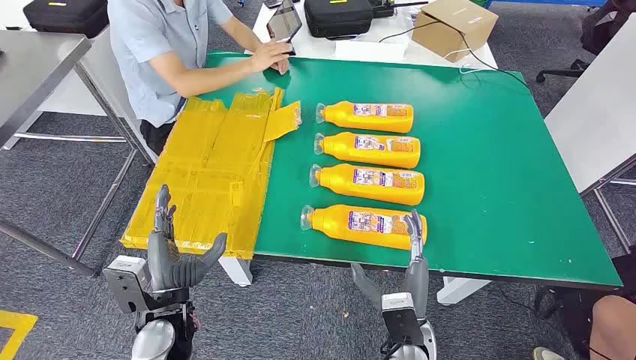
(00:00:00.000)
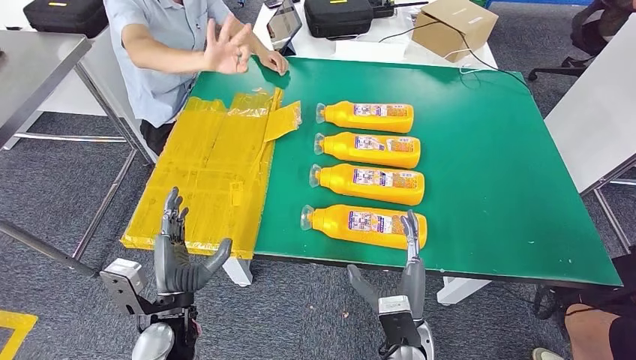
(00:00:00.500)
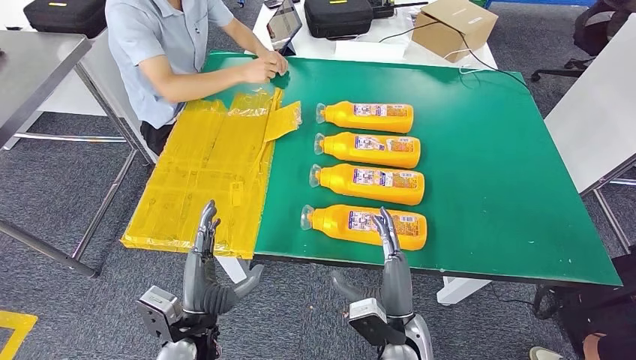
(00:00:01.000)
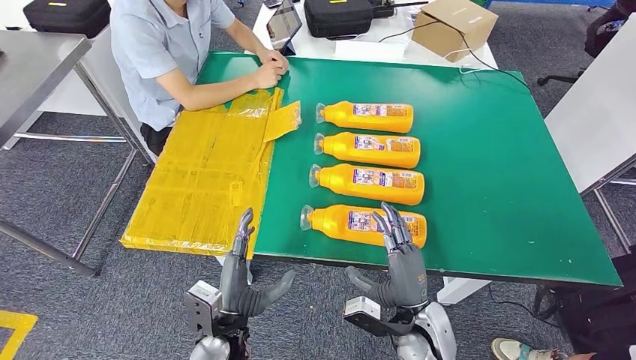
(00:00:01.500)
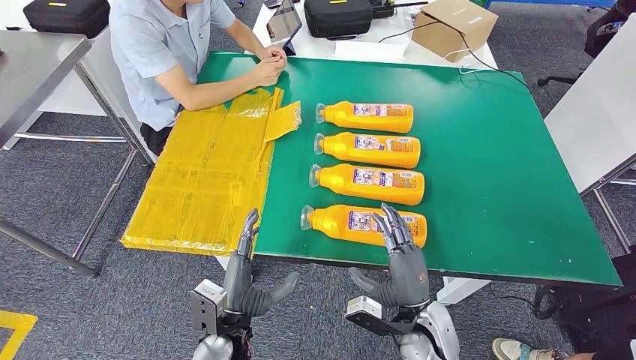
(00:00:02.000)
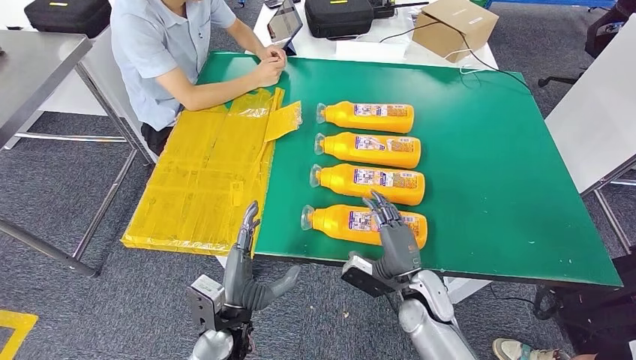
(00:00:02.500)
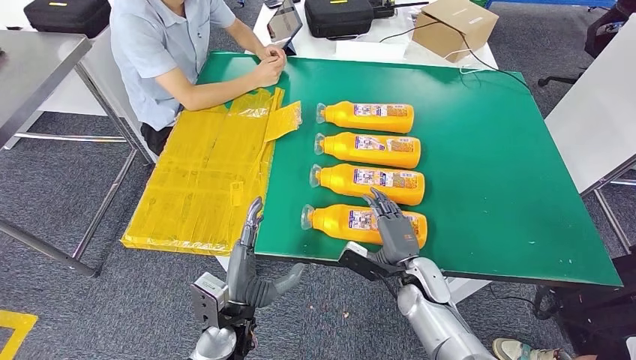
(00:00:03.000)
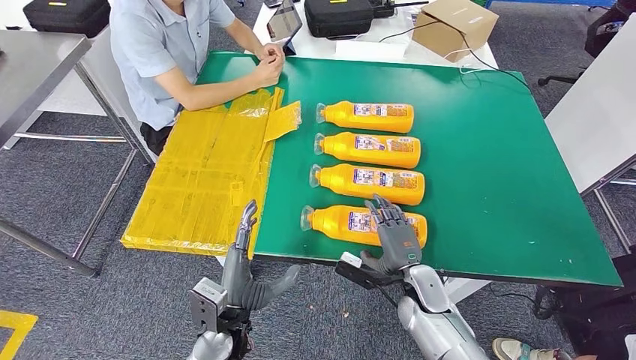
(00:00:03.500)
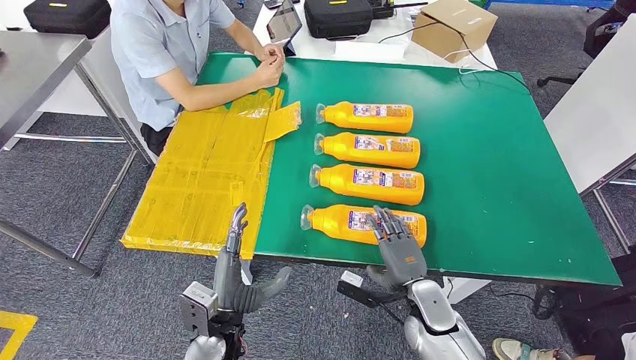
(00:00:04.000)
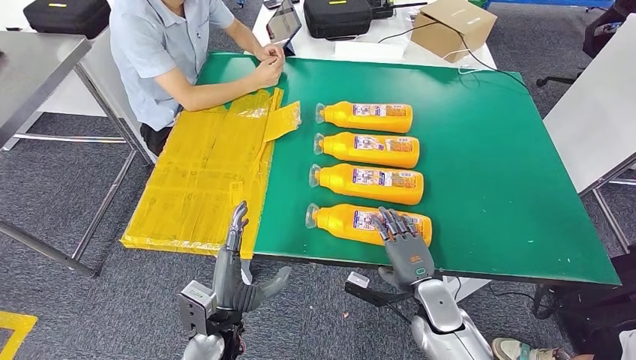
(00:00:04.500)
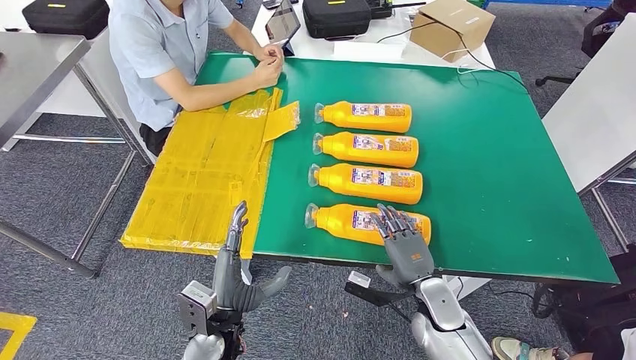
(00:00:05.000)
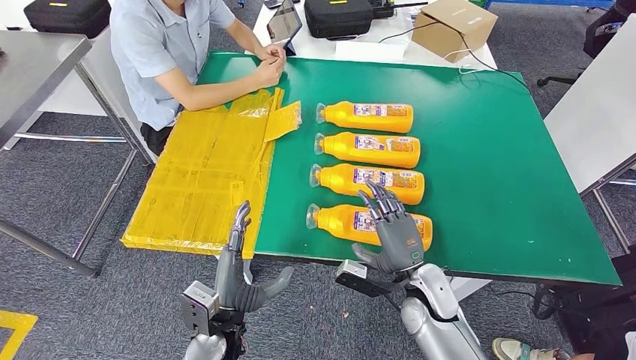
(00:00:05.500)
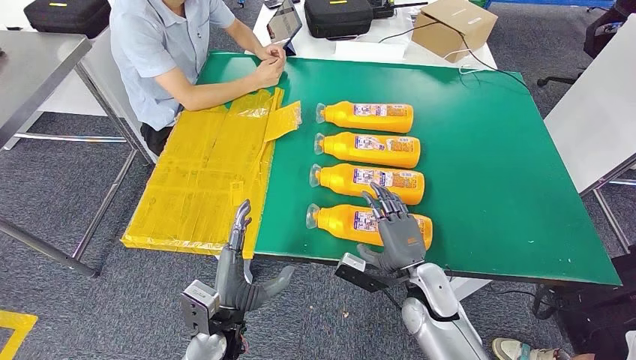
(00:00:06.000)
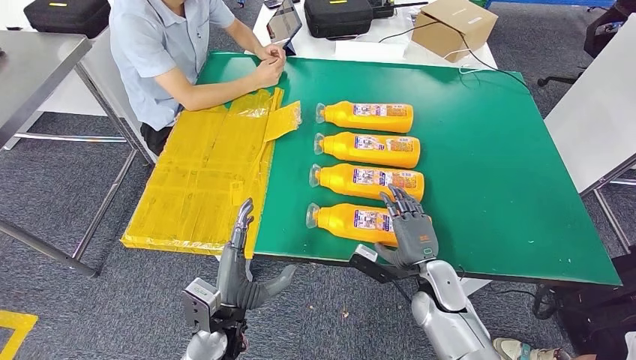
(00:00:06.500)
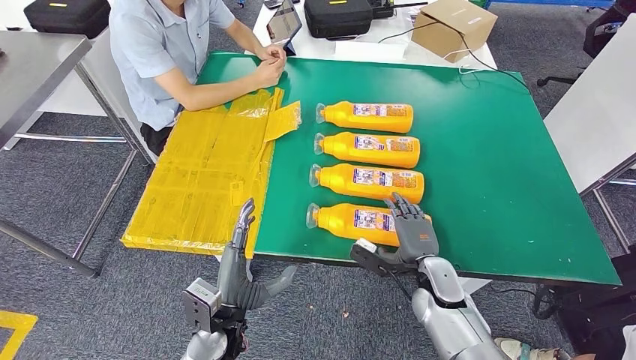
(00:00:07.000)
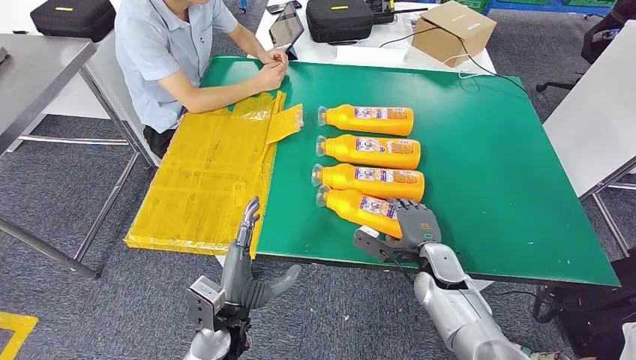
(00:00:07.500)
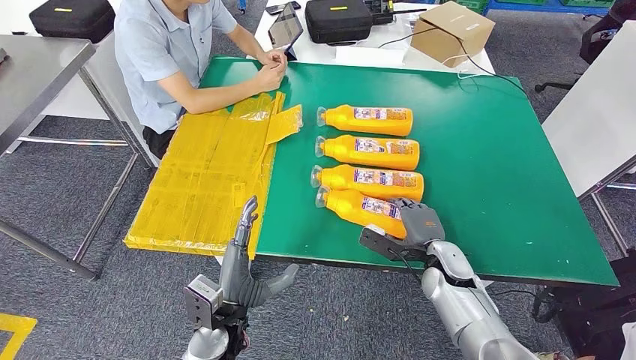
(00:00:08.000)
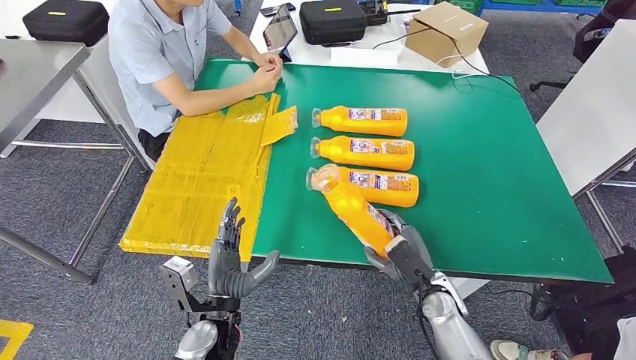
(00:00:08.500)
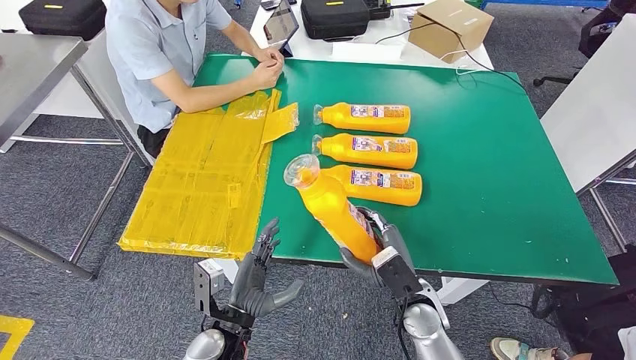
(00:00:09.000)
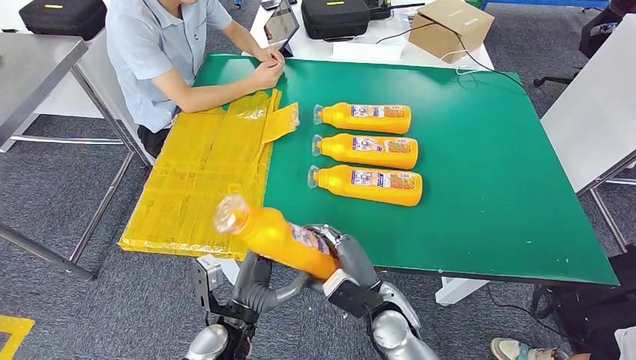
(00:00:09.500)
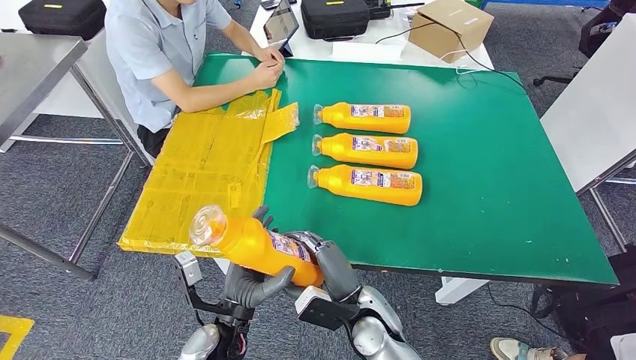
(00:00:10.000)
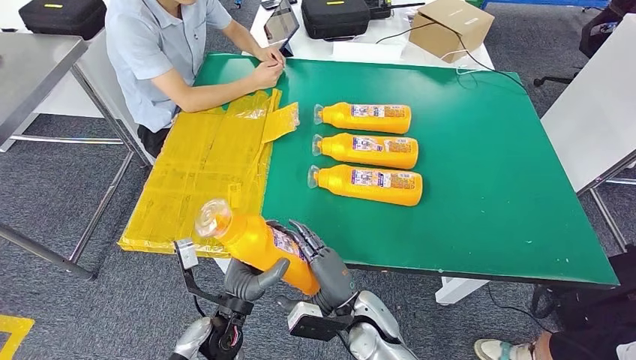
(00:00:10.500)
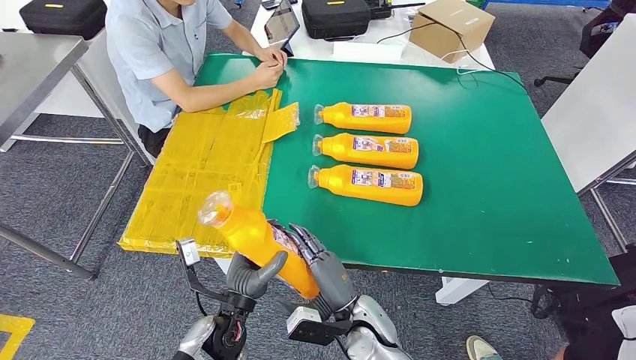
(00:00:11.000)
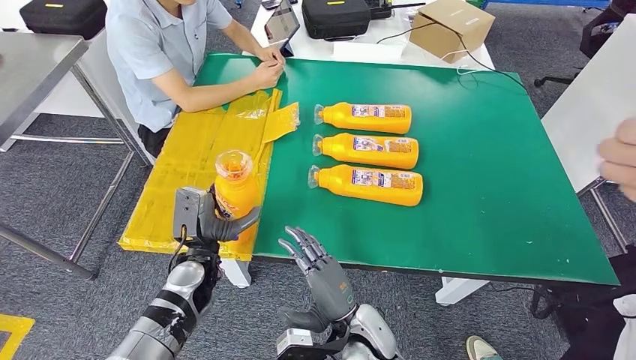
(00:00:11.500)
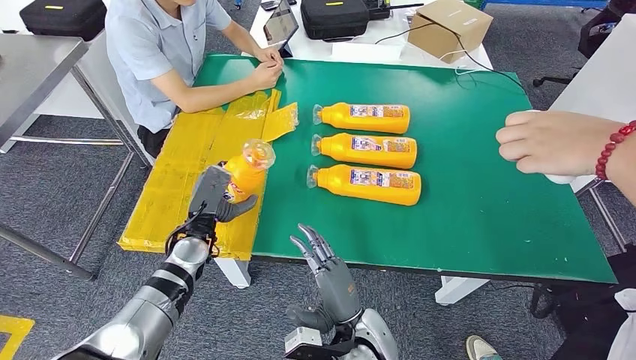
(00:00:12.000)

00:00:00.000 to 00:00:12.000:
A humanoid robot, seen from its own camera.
Step, 00:00:00.000 to 00:00:09.000: Take the fast-moving consumer goods bottle from the table.
00:00:04.000 to 00:00:06.000: The right hand ends up some 5 cm from where it was.
00:00:10.000 to 00:00:12.000: The left hand travels forward and to the left by roughly 15 cm.

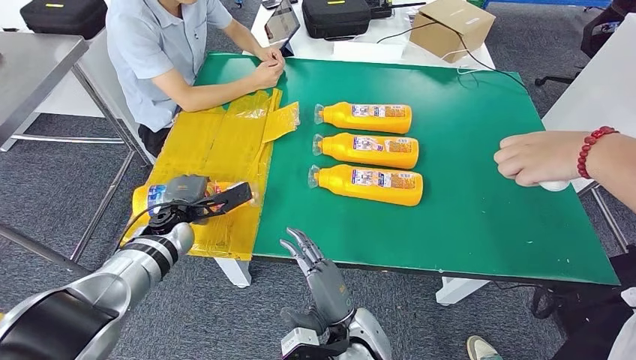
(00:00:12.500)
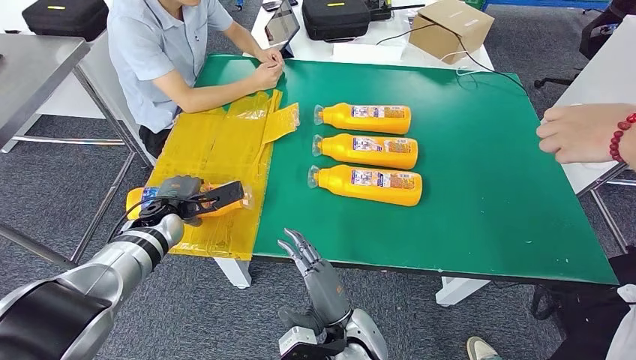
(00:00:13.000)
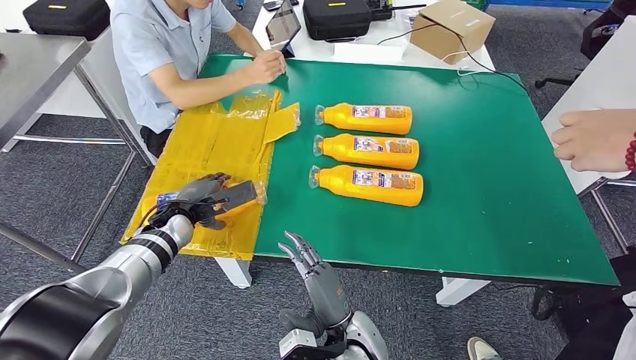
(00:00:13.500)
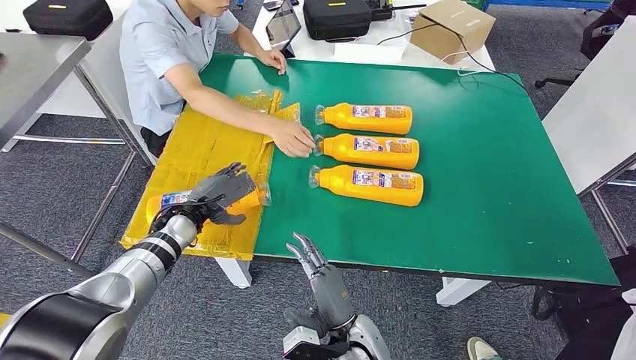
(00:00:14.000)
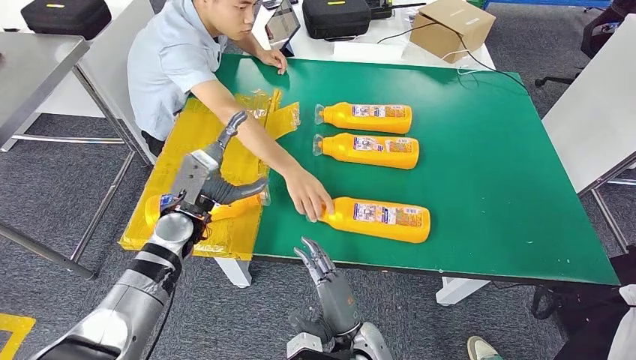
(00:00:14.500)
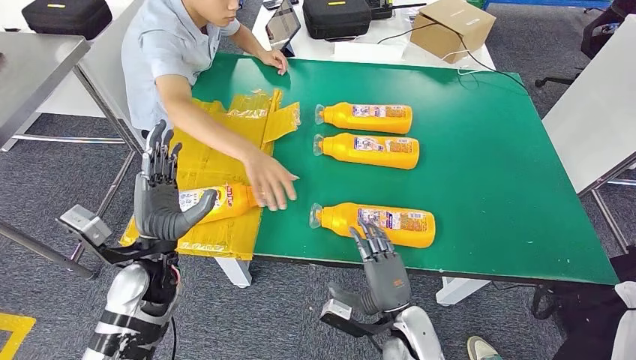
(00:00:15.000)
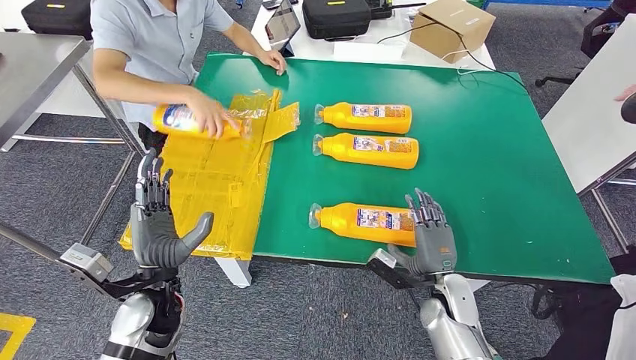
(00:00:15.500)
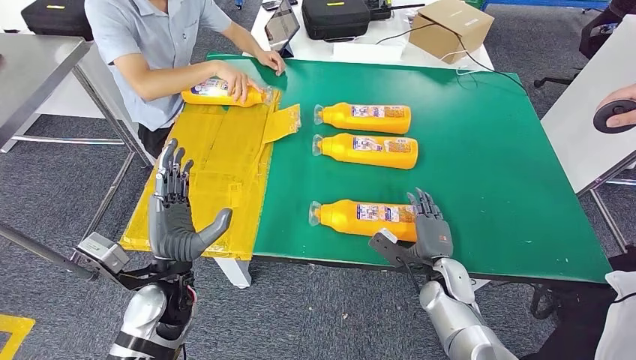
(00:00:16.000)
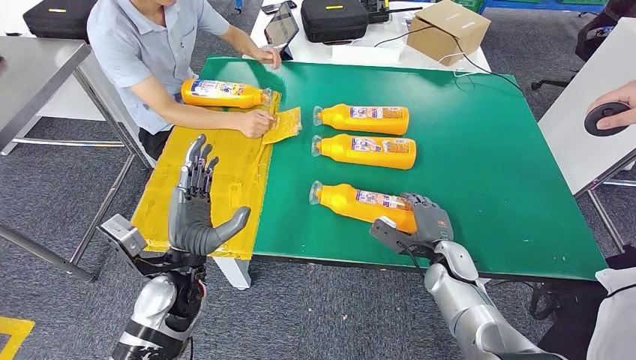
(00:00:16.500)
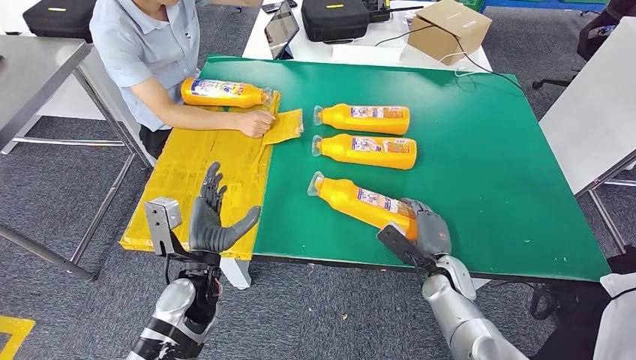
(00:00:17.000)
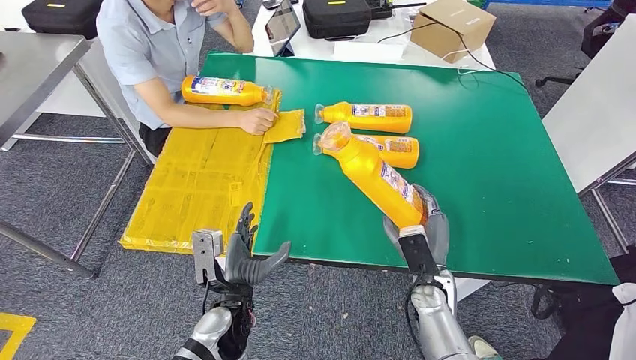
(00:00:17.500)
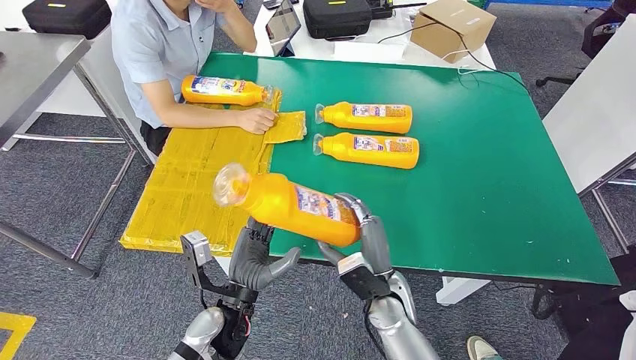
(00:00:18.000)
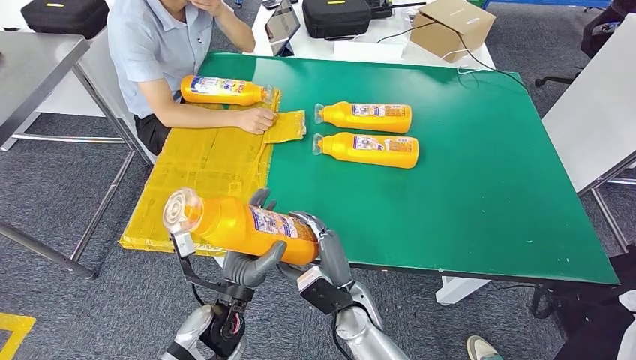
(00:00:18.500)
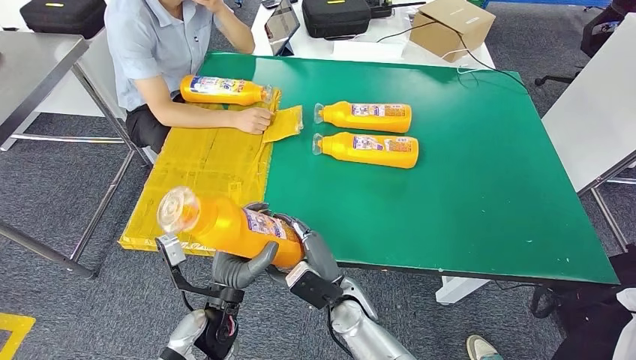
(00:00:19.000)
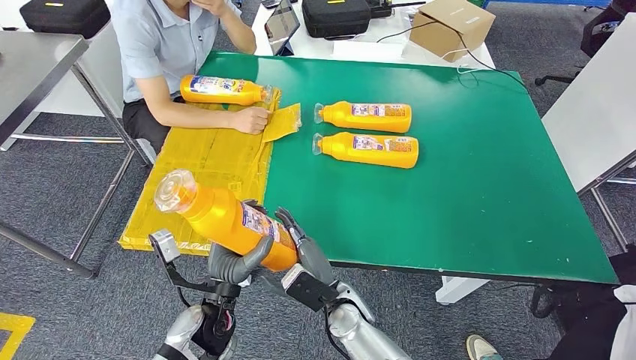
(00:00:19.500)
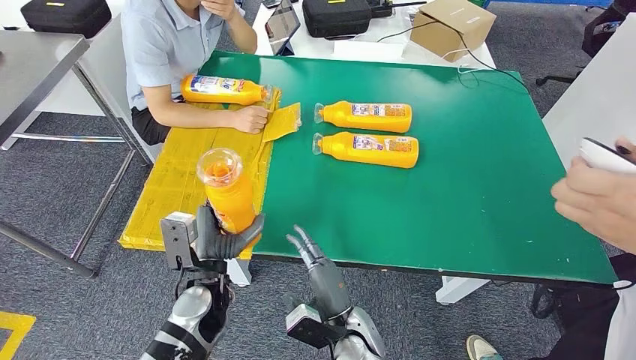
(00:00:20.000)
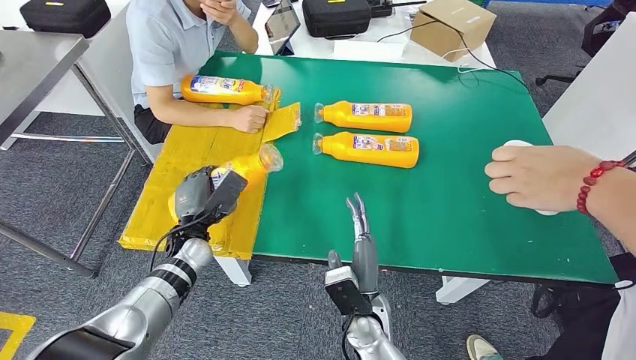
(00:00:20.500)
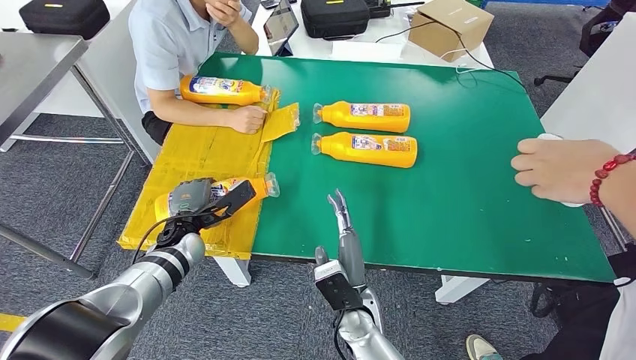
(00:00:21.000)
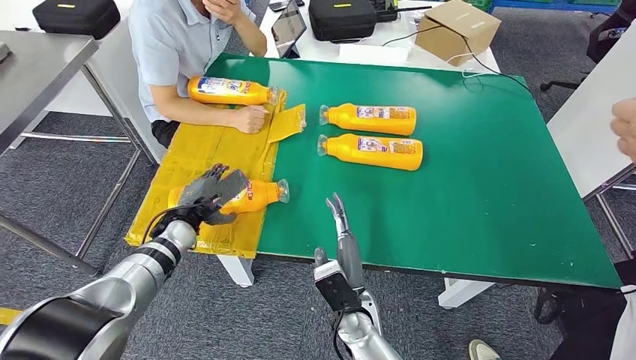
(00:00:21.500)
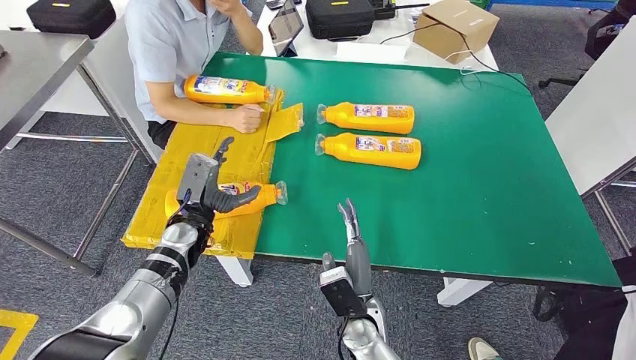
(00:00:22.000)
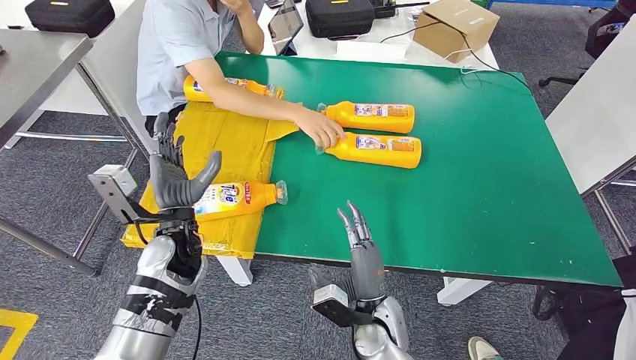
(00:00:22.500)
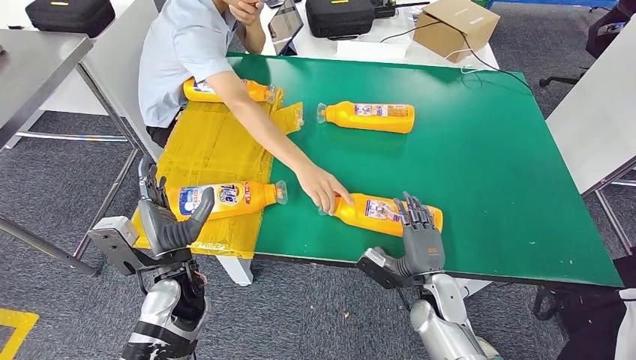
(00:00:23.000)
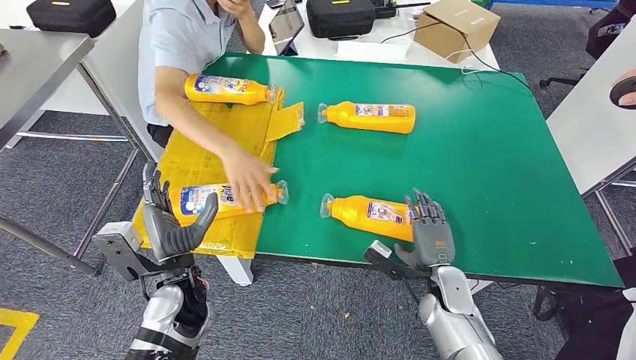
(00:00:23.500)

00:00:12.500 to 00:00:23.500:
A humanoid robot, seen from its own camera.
Step, 00:00:14.500 to 00:00:17.500: Pick up the fast-moving consumer goods bottle from the table.
Step, 00:00:18.000 to 00:00:22.000: Flip the fast-moving consumer goods bottle to the front side.
